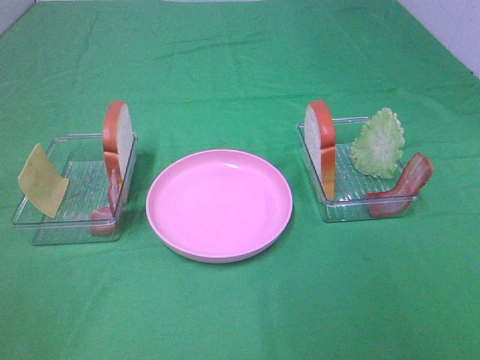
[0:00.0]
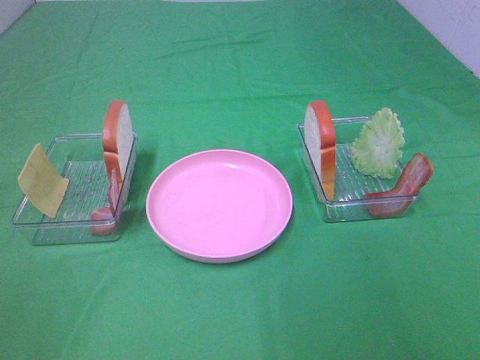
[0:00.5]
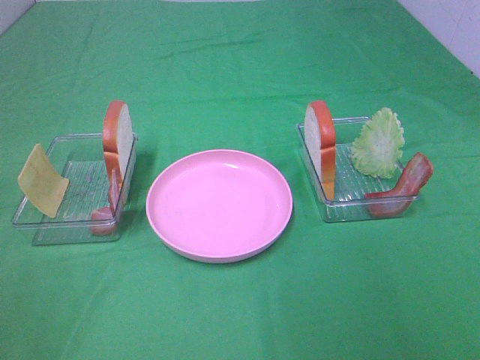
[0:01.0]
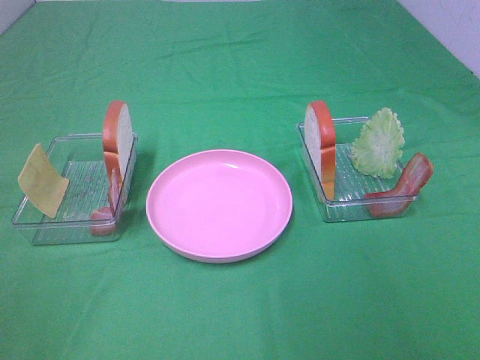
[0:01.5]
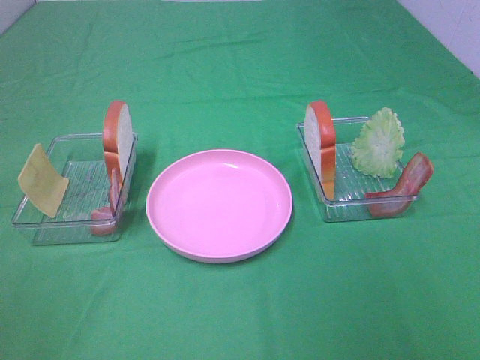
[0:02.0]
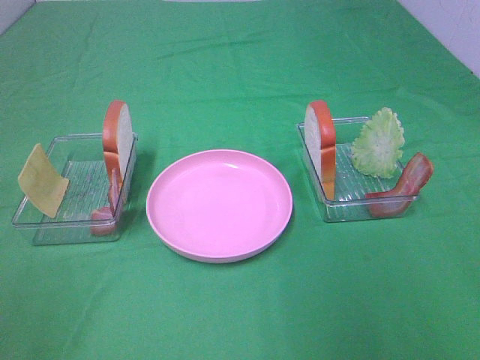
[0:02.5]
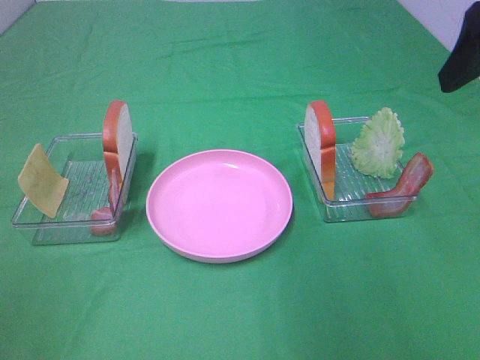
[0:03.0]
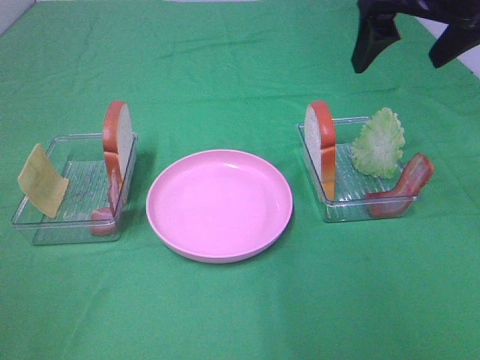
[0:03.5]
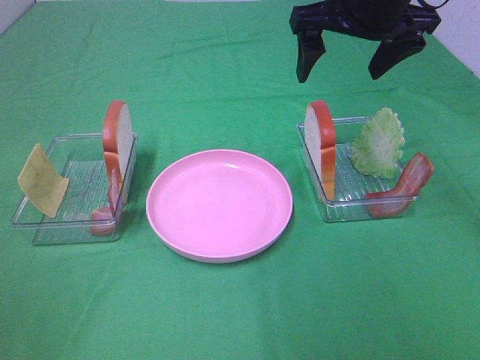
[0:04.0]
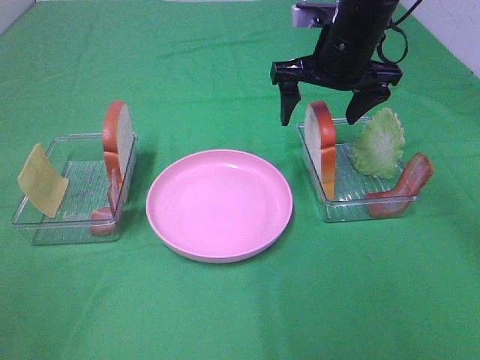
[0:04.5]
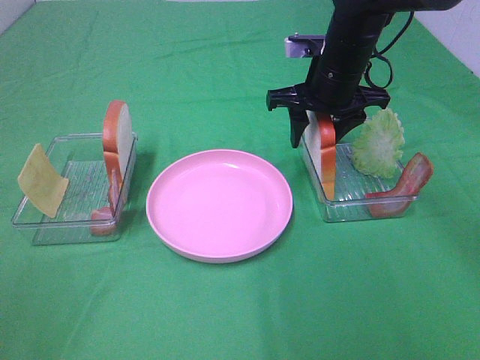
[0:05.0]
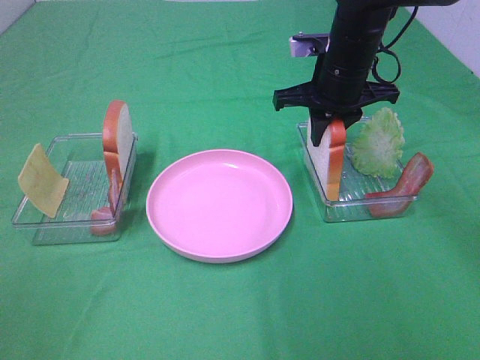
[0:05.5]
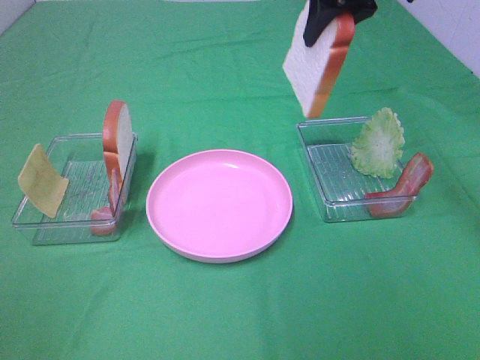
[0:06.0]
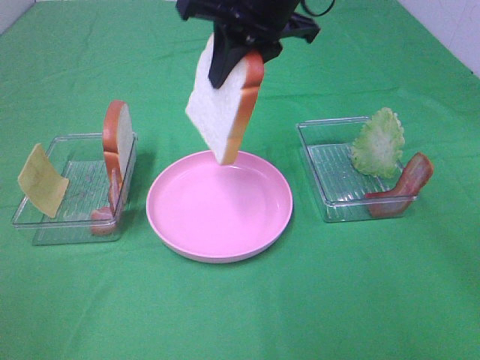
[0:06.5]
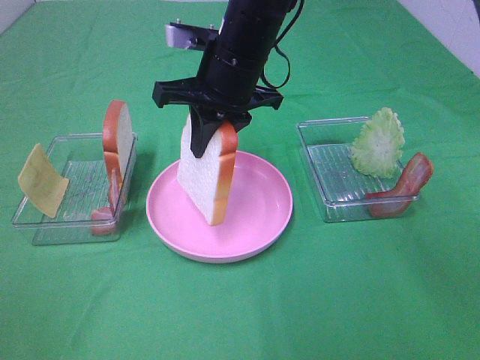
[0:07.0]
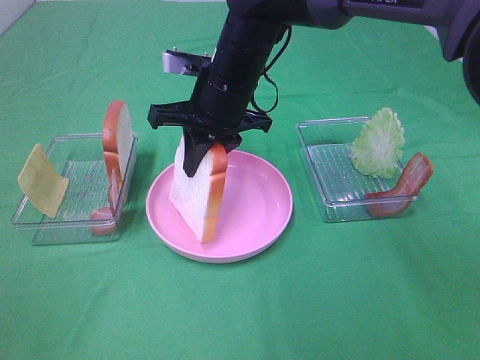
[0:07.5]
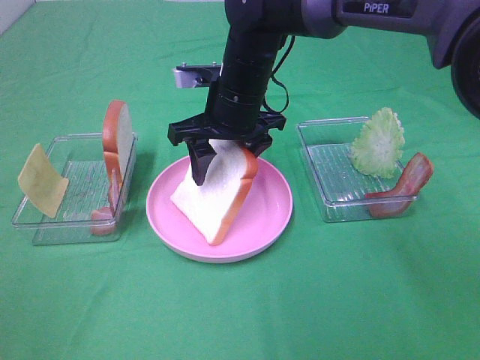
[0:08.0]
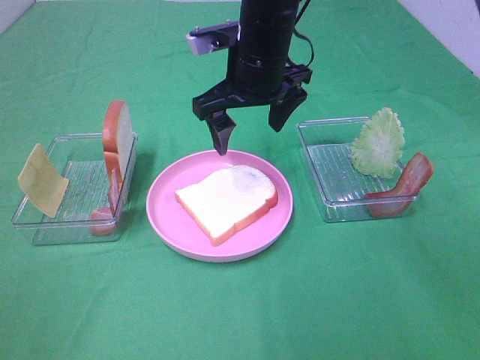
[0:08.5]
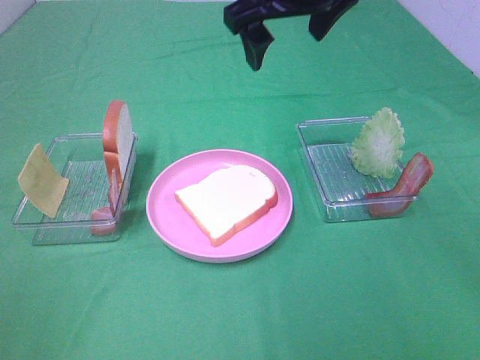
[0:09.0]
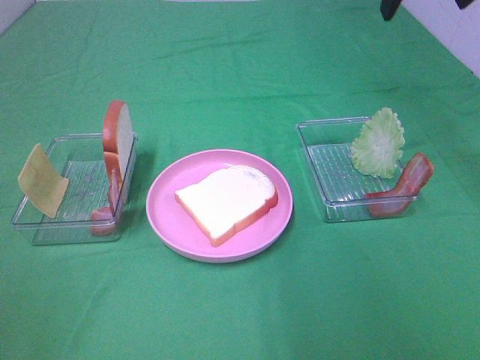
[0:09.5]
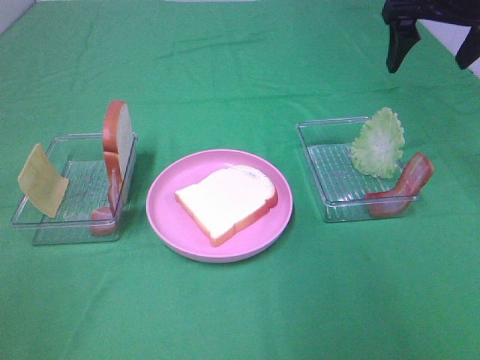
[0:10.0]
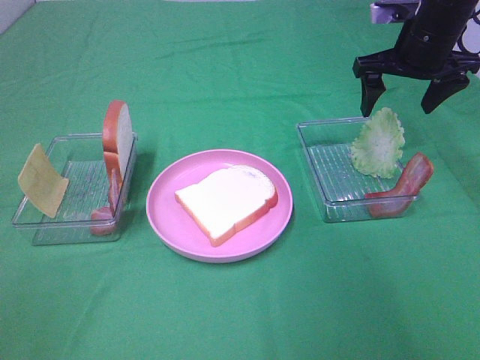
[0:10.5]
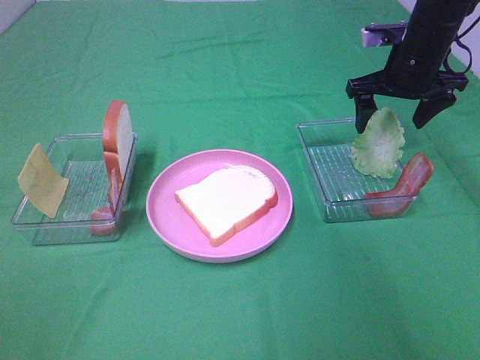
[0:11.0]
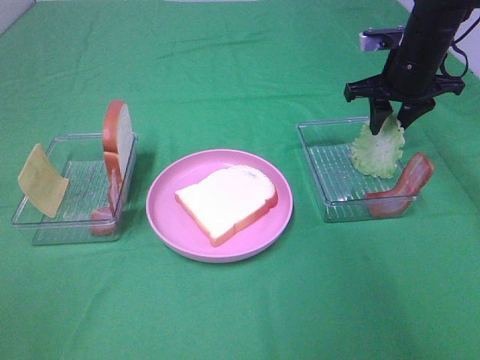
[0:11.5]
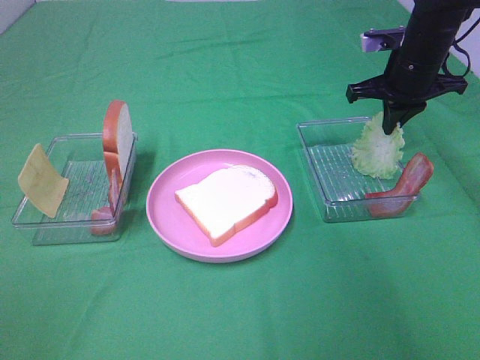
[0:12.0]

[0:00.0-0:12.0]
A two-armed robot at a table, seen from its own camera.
Task of the whole recording: Make sandwiches.
Step, 0:00.0 to 0:05.0: Right hand:grab the bread slice.
Step, 0:05.5 to 0:08.5: Right hand:place the bread slice on the plate.
Step, 0:09.0 to 0:12.0: Right hand:grab the lettuce slice.
0:02.0 to 0:04.0: The right gripper shifts about 35 cm forward.
0:04.0 to 0:06.0: The right gripper moves approximately 10 cm downward and comes back, and closes up.
0:06.0 to 0:08.0: The right gripper heads downward and to the left, covering some 20 cm, and opens its fingers.
0:08.0 to 0:10.0: The right gripper travels to the right and upward by some 25 cm.
0:10.0 to 0:12.0: The right gripper moves downward, about 10 cm, and closes its fingers.

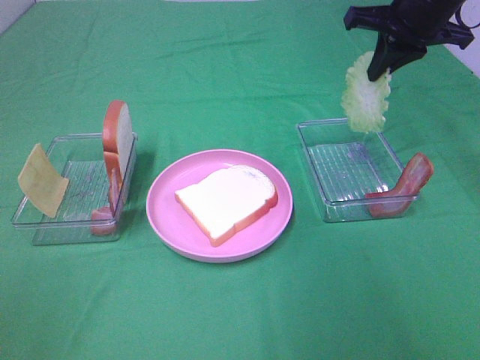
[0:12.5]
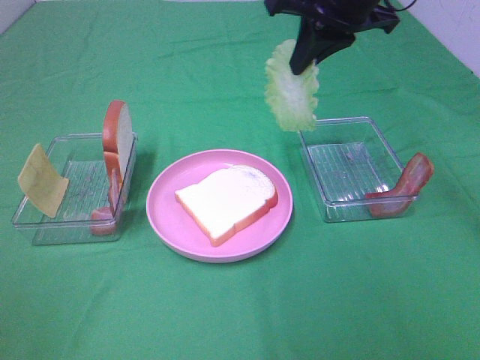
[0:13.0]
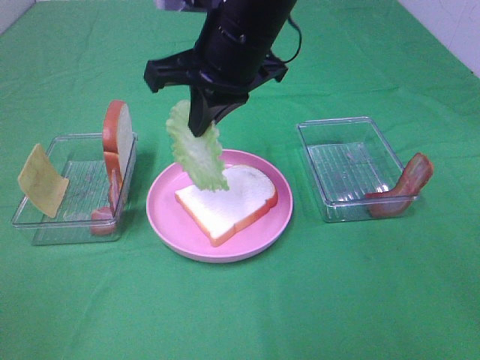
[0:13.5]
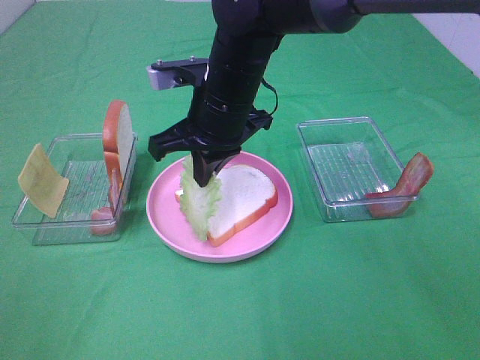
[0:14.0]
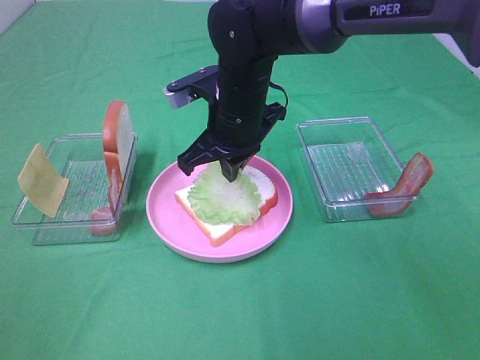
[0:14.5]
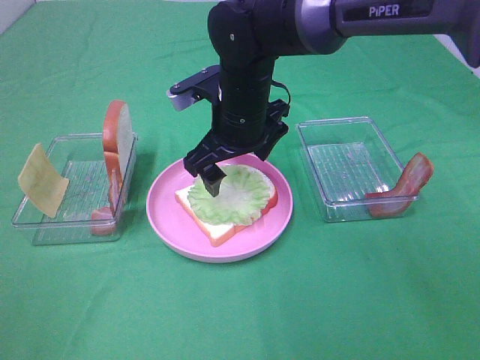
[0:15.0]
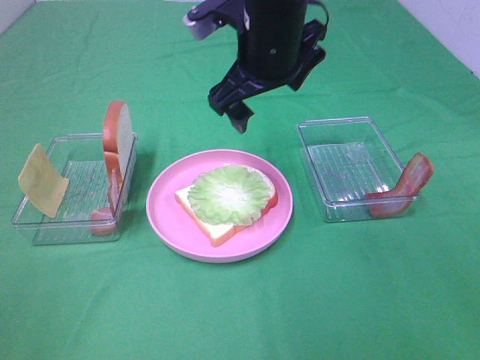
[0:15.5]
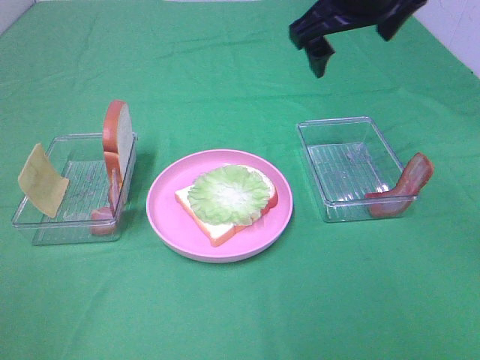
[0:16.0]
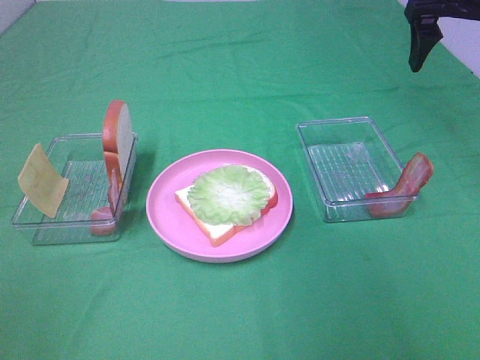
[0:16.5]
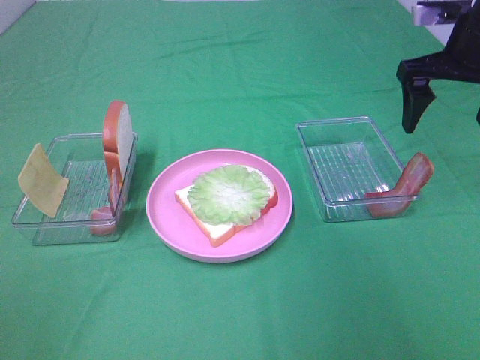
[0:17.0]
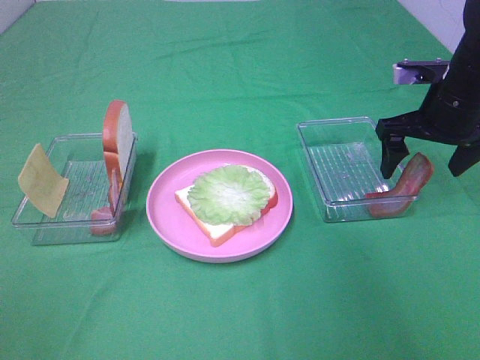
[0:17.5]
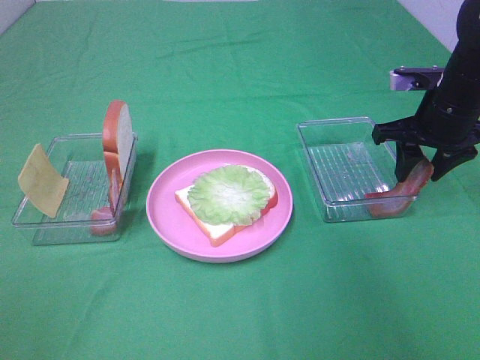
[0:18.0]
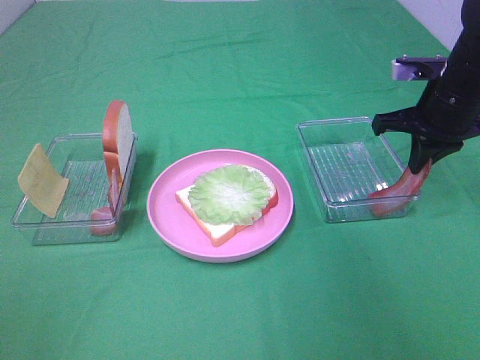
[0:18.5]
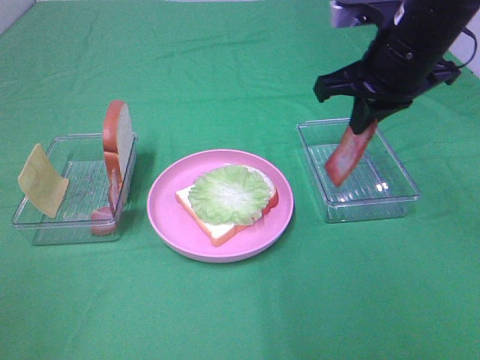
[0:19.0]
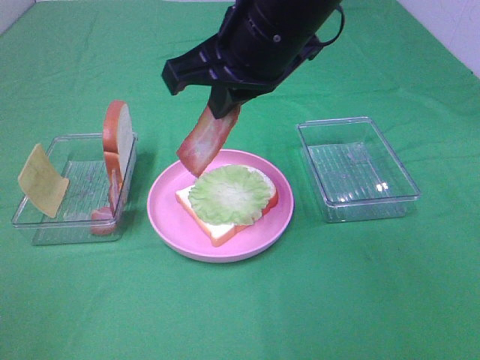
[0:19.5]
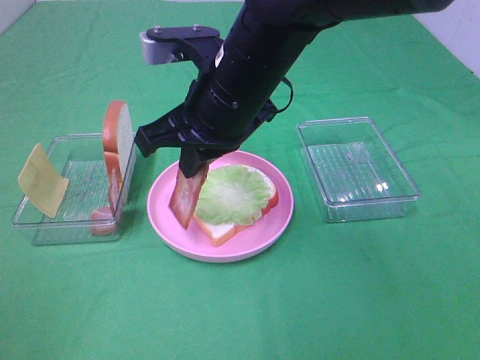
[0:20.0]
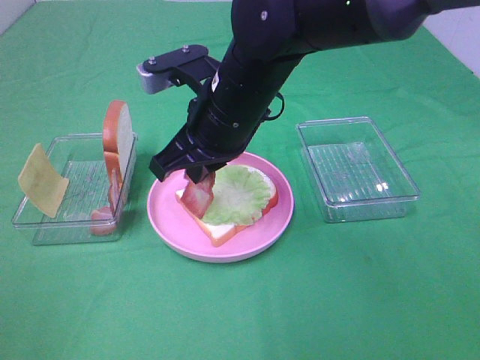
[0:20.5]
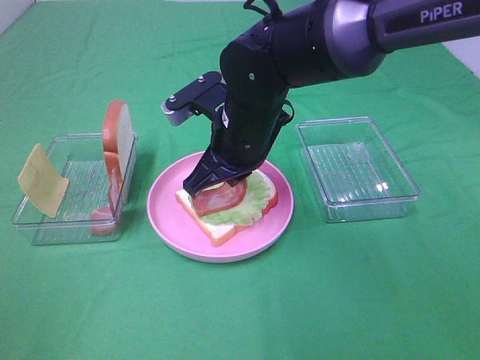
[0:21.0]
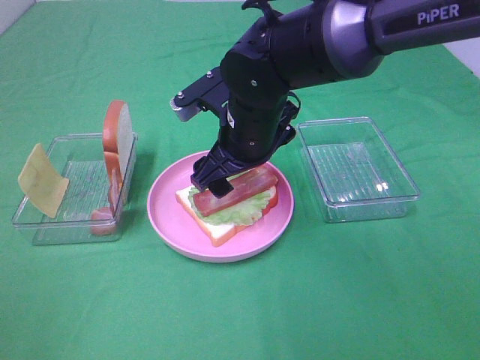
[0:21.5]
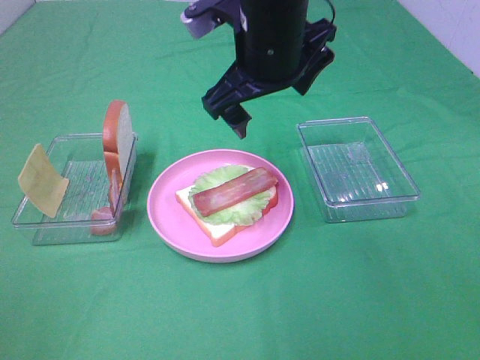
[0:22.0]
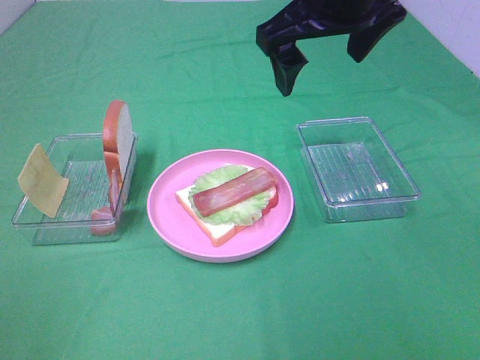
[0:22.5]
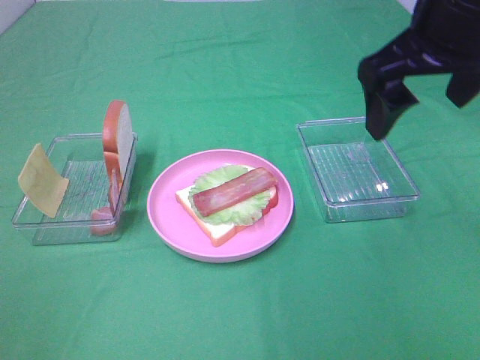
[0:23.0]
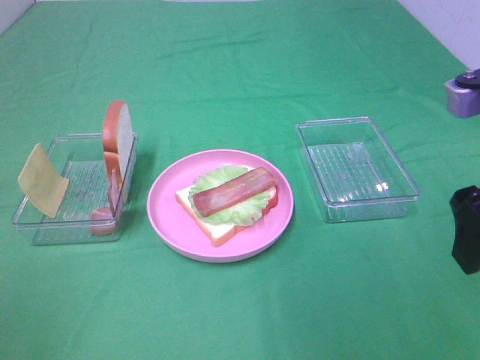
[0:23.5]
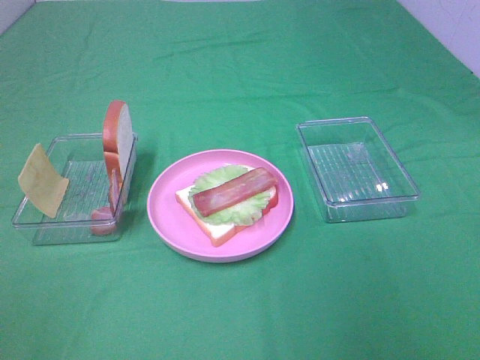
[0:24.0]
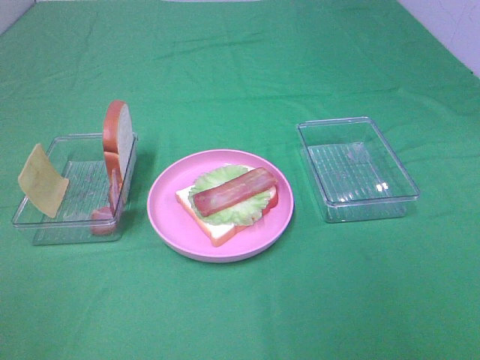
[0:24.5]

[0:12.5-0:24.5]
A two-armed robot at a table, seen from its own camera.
Task of the whole recording: Make sandwiches.
Step, 0:12.5 to 0:15.0: Right hand:place the lettuce slice on the bread slice.
Step, 0:15.5 to 0:18.0: Right hand:grab the bacon.
Step, 0:18.5 to 0:21.5: Right hand:place bacon on lettuce slice.
0:12.5 to 0:14.5: The right gripper travels to the left and downward by about 25 cm.
0:14.5 to 0:16.5: The right gripper is displaced to the right and upward by approximately 30 cm, and opens its fingers.
0:16.5 to 0:18.5: The right gripper shifts some 15 cm downward, and closes up.
0:18.5 to 0:20.5: The right gripper is displaced to the left by roughly 25 cm.
0:20.5 to 0:22.5: The right gripper goes approximately 15 cm upward and to the right, and opens up.
0:22.5 to 0:24.5: The right gripper travels backward and to the right by about 35 cm.

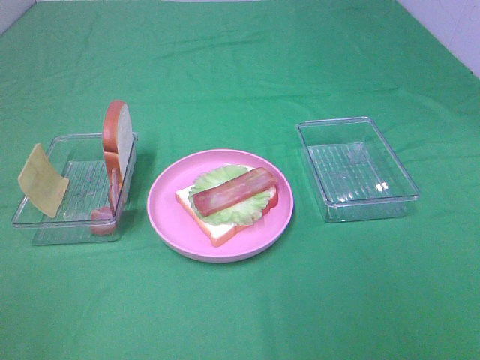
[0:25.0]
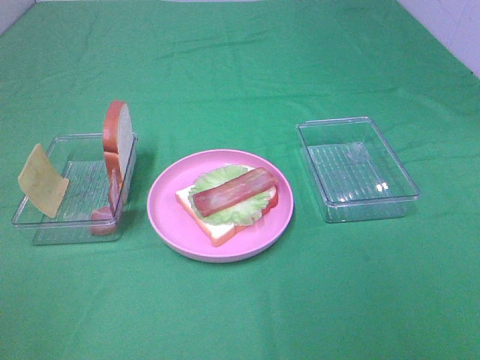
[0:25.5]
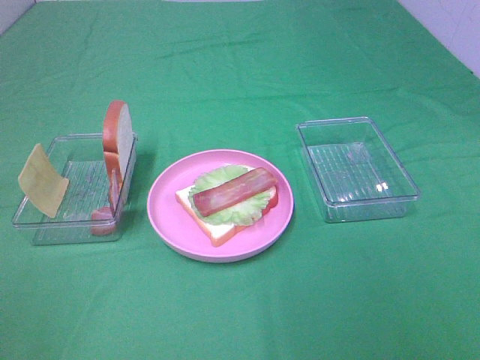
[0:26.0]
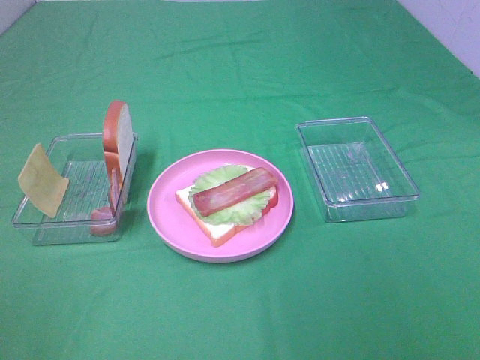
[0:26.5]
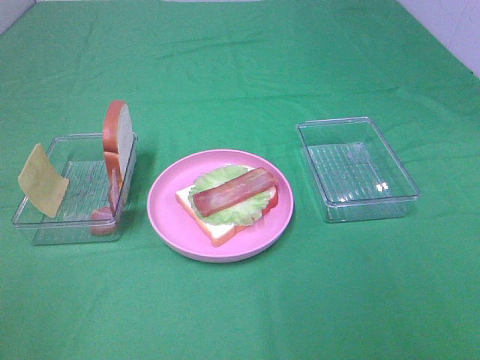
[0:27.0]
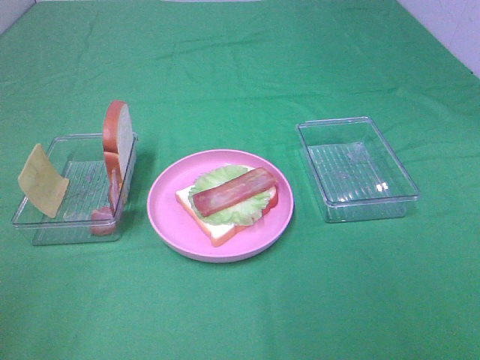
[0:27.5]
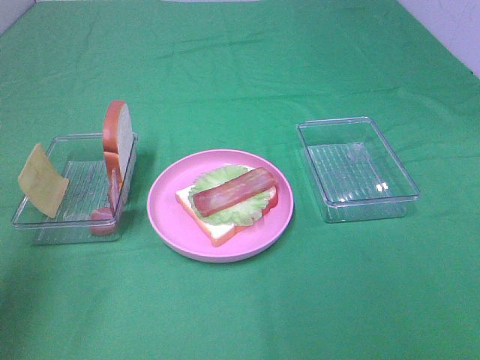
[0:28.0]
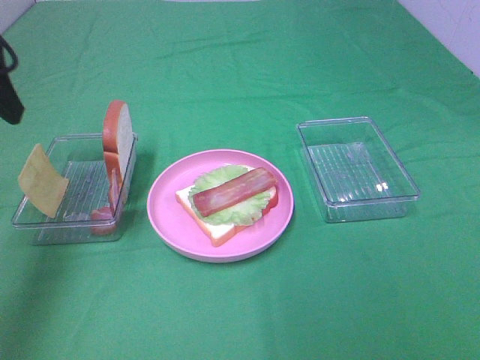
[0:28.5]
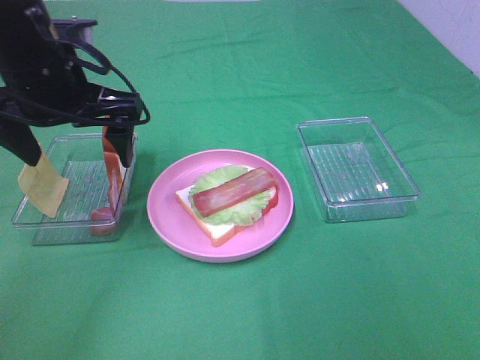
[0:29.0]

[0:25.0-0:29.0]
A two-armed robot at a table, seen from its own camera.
Task of the whole recording: Make sandwiches.
0:25.0 to 0:27.0: The two grippers keep their place.
0:27.0 to 0:29.0: The left gripper goes about 35 cm forward and to the right.
